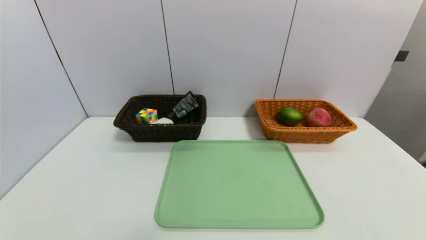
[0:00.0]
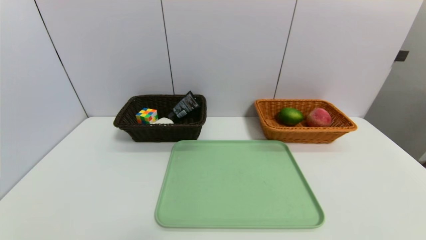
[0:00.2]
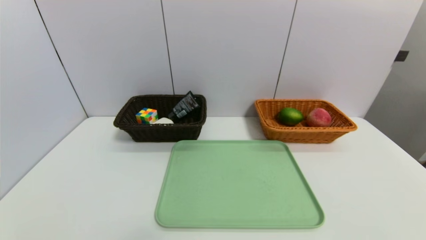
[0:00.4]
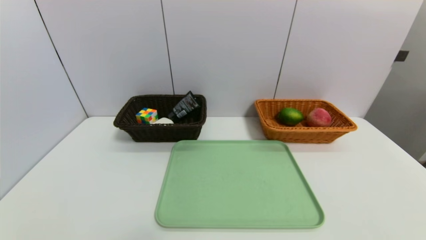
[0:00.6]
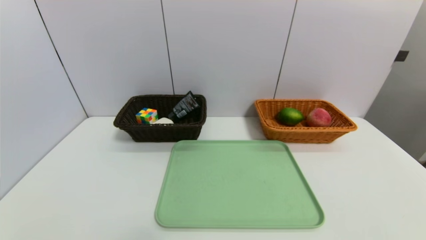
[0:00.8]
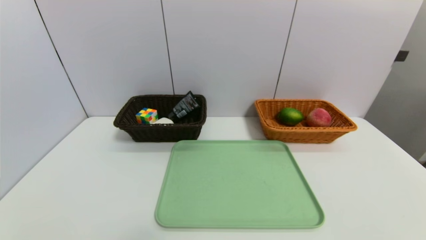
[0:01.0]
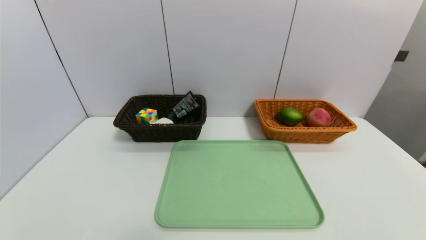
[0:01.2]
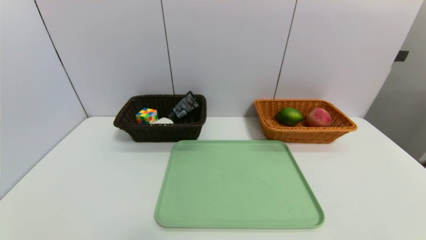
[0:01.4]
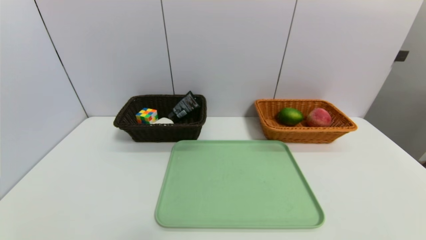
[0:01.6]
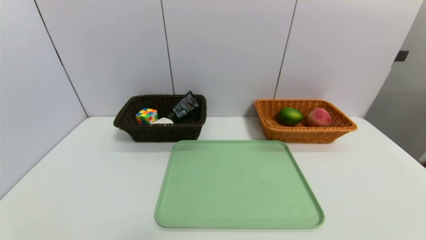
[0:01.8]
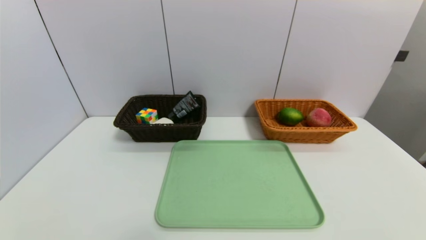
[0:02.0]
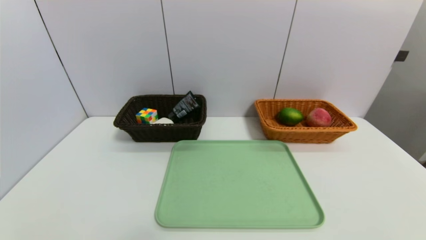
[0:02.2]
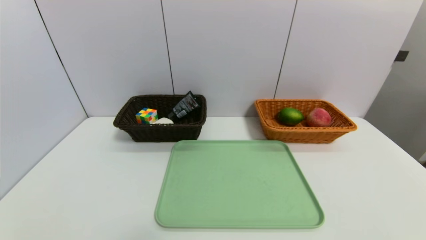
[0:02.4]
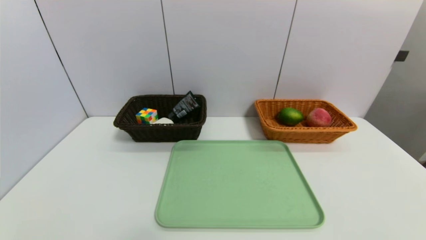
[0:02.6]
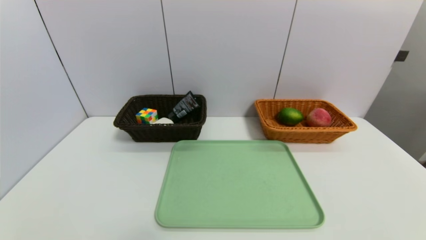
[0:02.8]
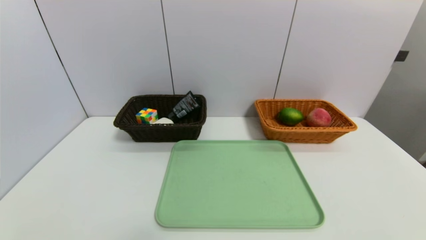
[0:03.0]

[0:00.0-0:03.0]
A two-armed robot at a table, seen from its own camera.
Task of the whole recording: place the food in the right basket with the right gripper, and place the non food items in the left basket with the left gripper.
0:01.6 to 0:03.0: The two grippers keep their place.
